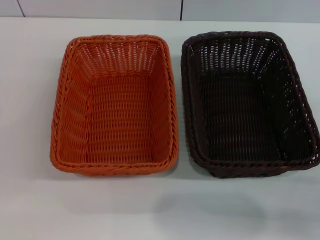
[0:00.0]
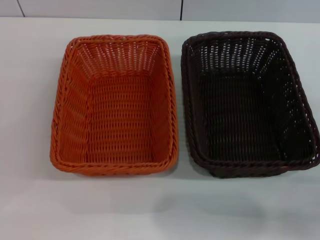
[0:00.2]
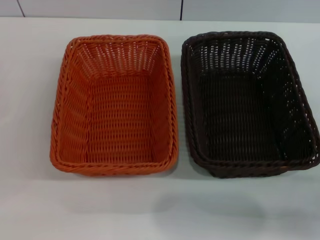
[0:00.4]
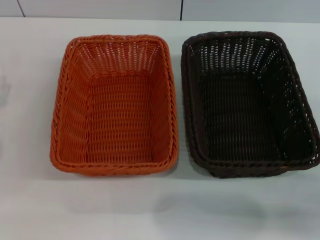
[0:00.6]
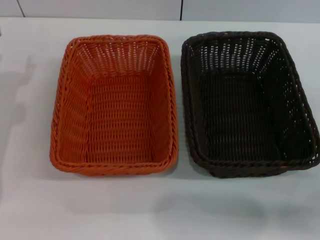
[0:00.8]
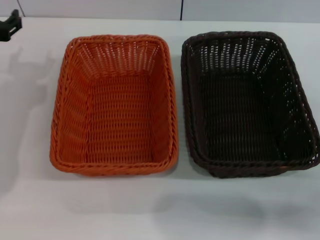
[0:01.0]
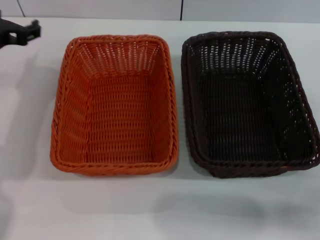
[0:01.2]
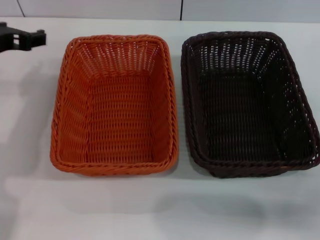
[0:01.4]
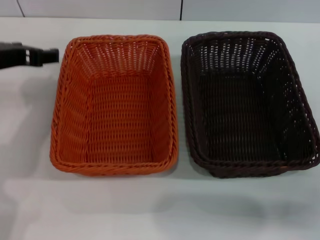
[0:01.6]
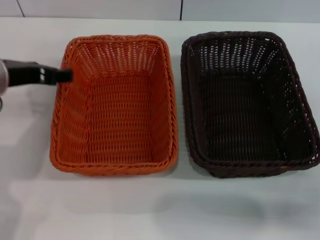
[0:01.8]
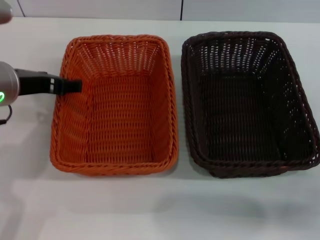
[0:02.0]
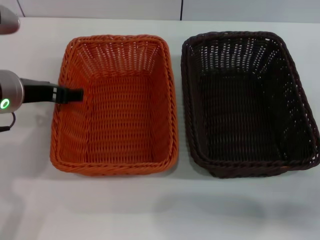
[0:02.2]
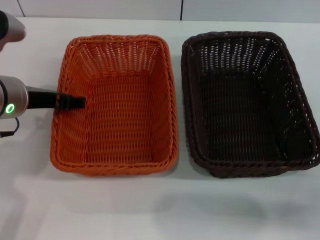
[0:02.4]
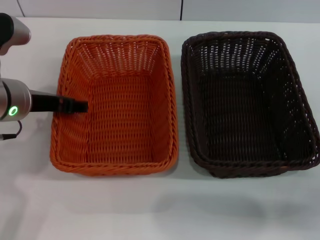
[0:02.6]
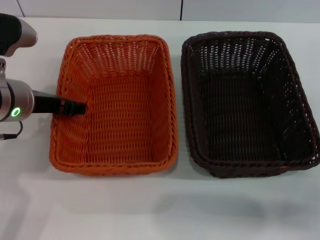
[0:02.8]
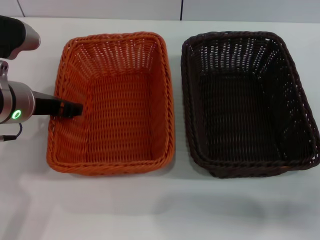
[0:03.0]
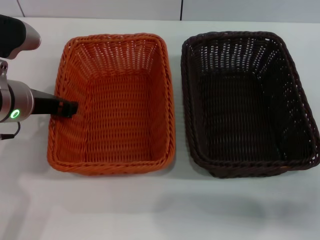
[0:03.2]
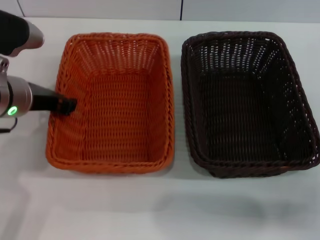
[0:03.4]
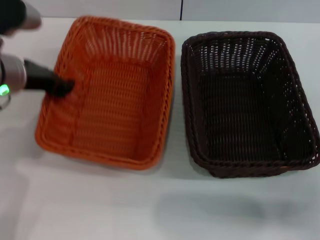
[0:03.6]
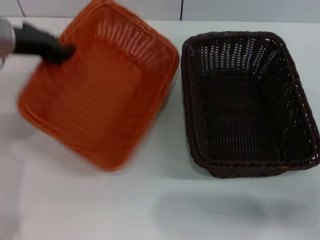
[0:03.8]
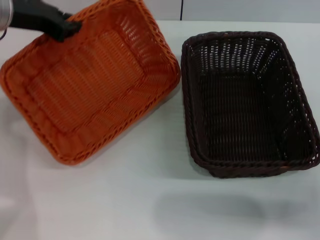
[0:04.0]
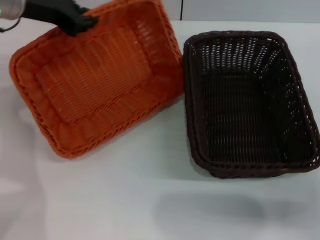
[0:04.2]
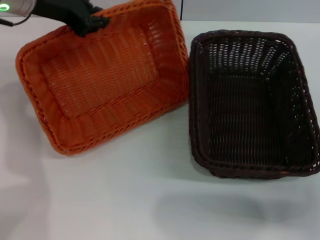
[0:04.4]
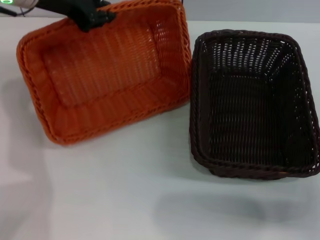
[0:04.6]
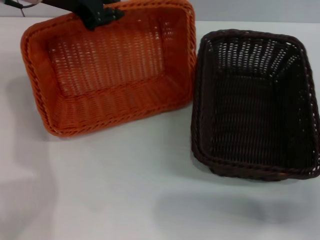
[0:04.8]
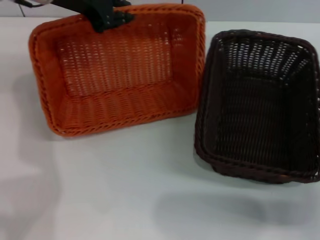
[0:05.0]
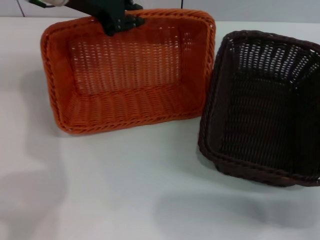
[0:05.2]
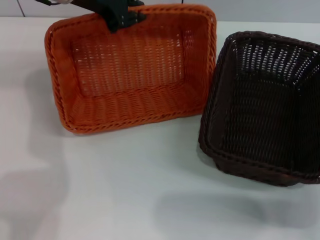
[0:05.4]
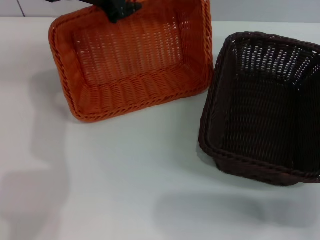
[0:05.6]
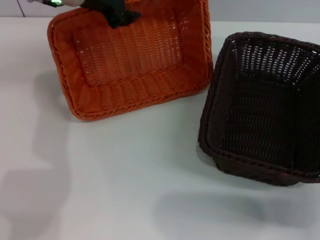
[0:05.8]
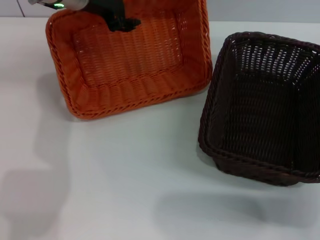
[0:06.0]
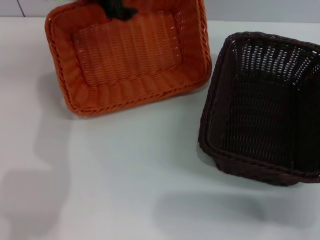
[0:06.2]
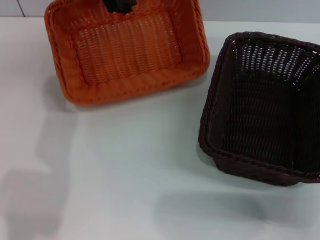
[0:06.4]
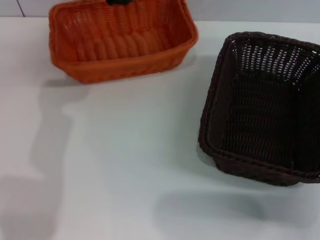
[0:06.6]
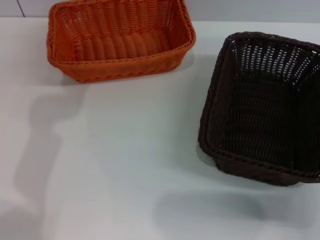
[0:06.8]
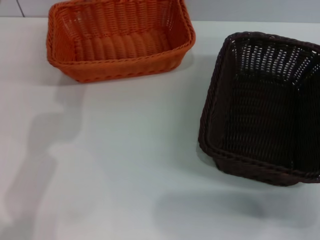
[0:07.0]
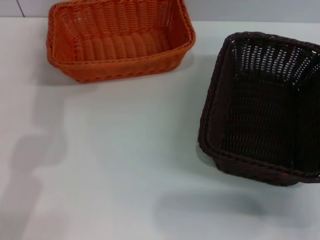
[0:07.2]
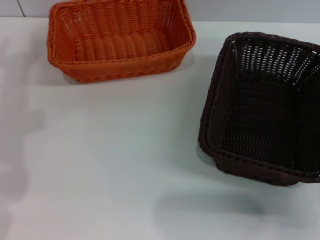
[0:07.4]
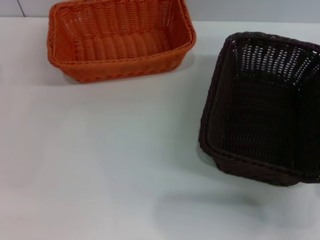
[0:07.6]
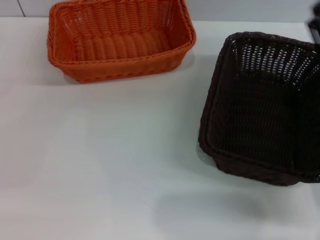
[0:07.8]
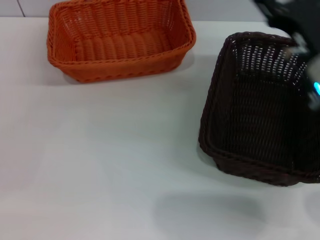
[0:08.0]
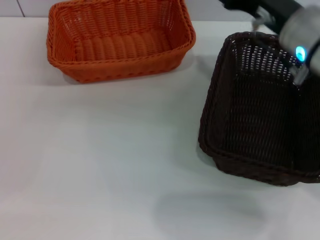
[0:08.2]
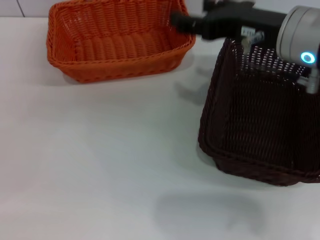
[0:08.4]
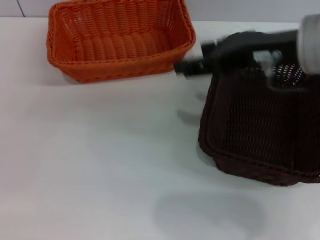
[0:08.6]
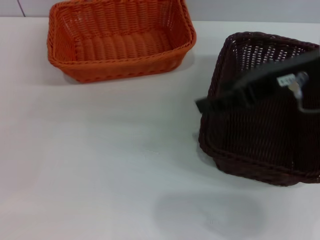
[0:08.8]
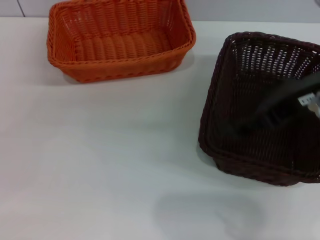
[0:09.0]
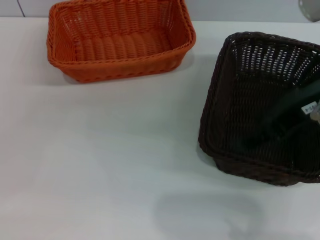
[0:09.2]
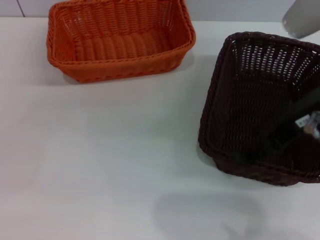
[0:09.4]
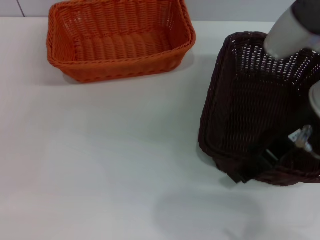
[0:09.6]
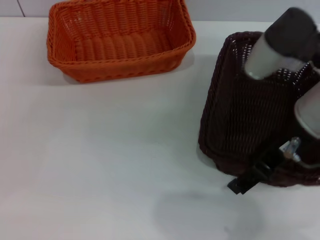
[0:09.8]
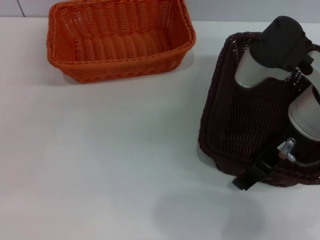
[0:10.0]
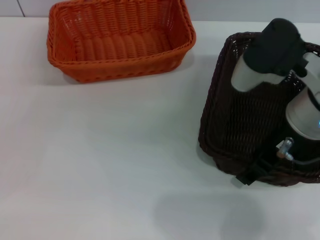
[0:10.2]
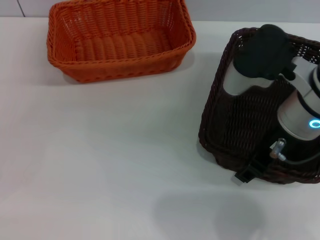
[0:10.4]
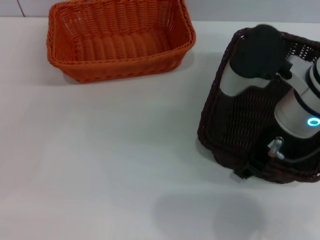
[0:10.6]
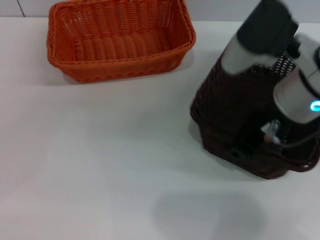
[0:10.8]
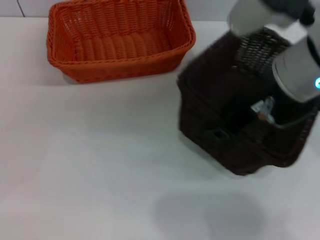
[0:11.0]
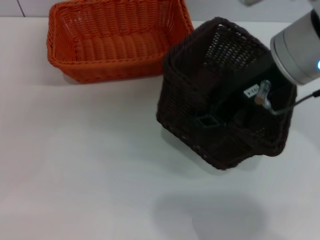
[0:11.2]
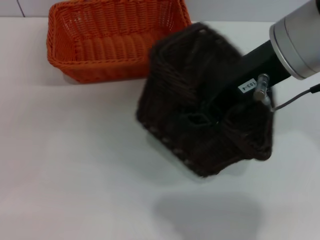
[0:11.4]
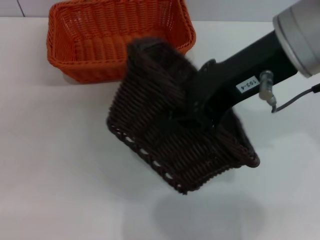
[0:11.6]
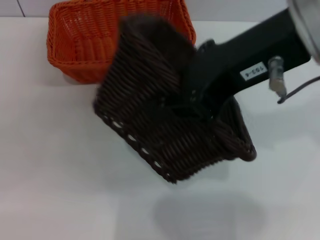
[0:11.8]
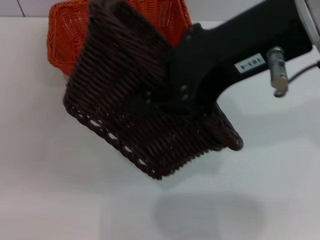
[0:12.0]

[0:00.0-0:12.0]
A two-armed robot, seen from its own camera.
Step, 0:00.0 to 0:03.8: Pick up the light basket with the left gripper.
Step, 0:04.0 to 0:06.4: Place the light basket in the center of view with the left gripper.
Step, 0:06.8 to 0:11.2: Pick up the dark basket with the right gripper.
0:00.0 to 0:01.6: The left gripper moves upward, to the right and forward, about 25 cm.
0:01.6 to 0:03.0: The left gripper moves downward, some 5 cm.
0:03.0 to 0:04.4: The left gripper moves forward and upward, about 15 cm, and closes up.
0:04.4 to 0:06.0: The left gripper goes approximately 5 cm to the right.
0:06.0 to 0:07.6: The left gripper travels to the left, backward and downward by some 25 cm, and opens.
0:07.6 to 0:09.0: The right gripper travels upward by some 20 cm.
0:09.0 to 0:10.4: The right gripper goes about 10 cm downward.
0:10.4 to 0:12.0: The right gripper heads upward, covering some 15 cm, and closes its fingers.

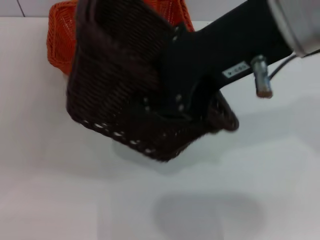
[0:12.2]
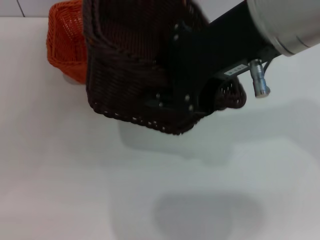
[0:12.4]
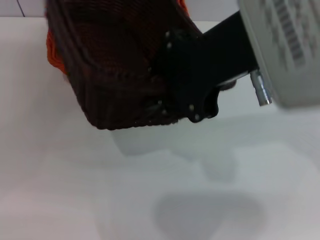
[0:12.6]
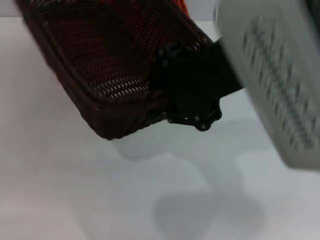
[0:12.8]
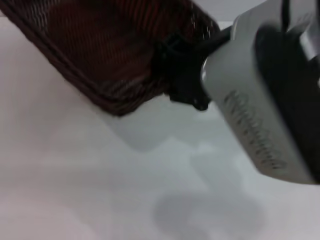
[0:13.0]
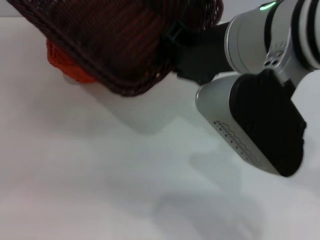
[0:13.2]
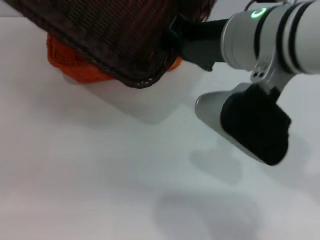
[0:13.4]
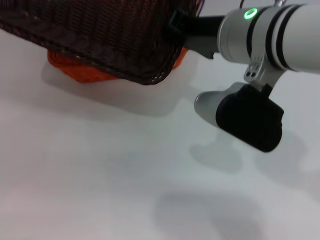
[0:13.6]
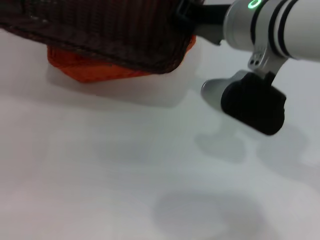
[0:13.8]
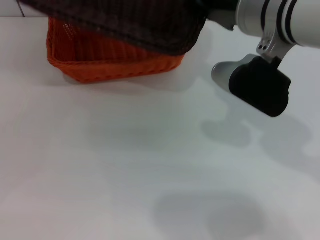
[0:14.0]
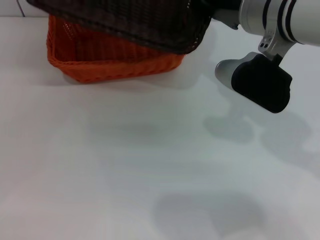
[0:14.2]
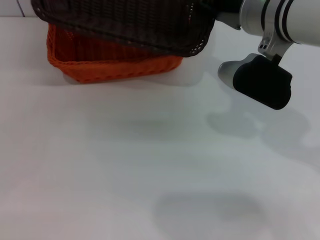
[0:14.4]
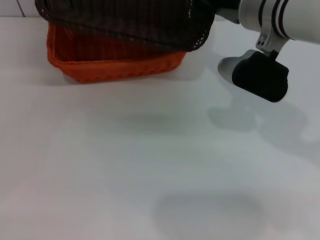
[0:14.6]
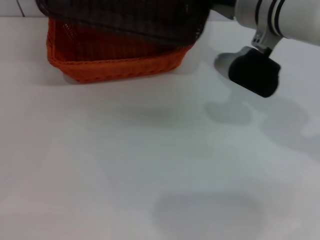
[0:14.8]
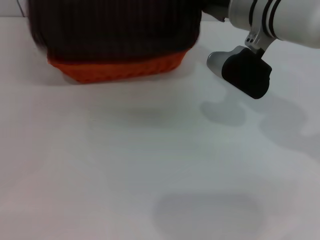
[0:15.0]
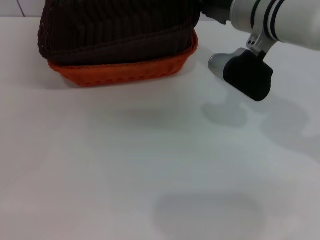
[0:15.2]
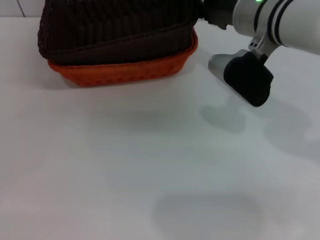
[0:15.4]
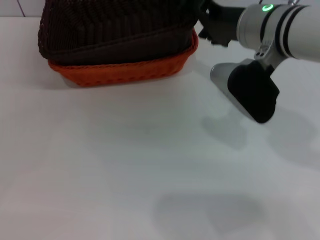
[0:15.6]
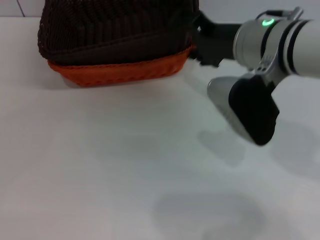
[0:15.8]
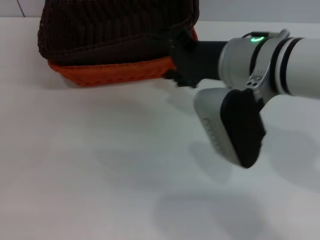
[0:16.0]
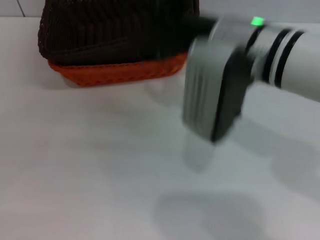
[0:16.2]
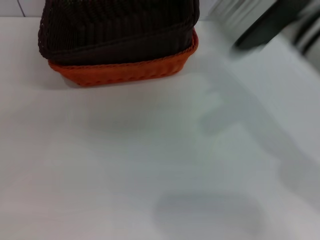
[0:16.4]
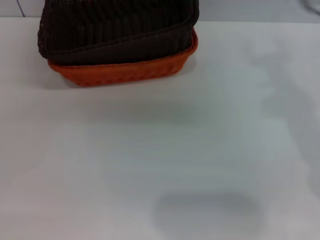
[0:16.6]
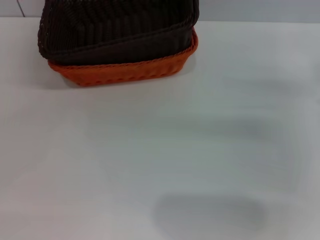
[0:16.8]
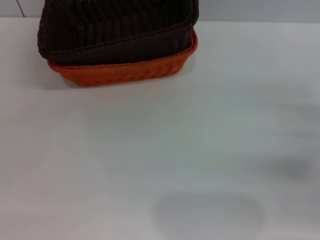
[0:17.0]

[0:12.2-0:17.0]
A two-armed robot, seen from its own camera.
Step, 0:12.2 to 0:15.6: Place the dark basket on the light basket with the right gripper.
0:12.2 to 0:13.8: The right gripper shifts about 15 cm downward and forward.
0:13.8 to 0:15.4: The right gripper travels forward by roughly 5 cm, and opens its fingers.
0:15.4 to 0:17.0: The right gripper moves to the right, backward and downward, approximately 25 cm, and opens its fingers.
